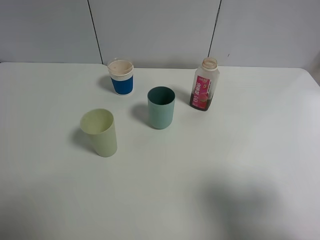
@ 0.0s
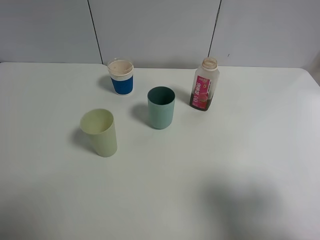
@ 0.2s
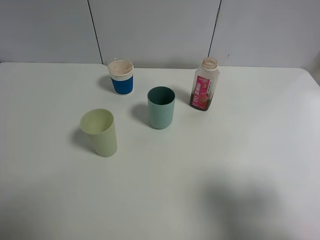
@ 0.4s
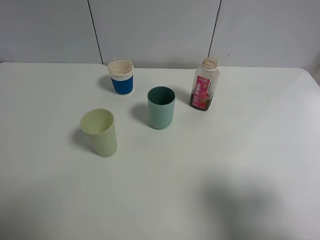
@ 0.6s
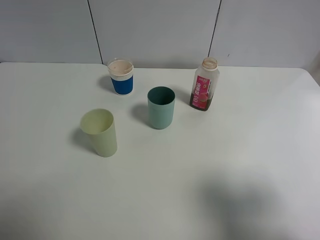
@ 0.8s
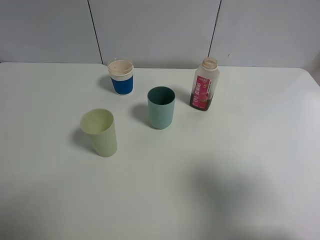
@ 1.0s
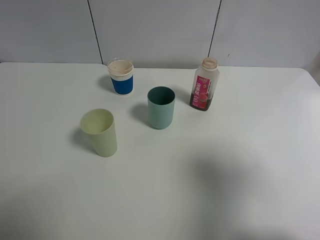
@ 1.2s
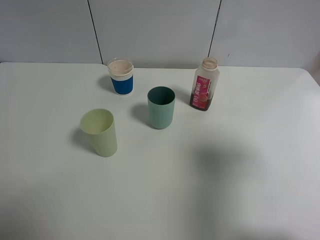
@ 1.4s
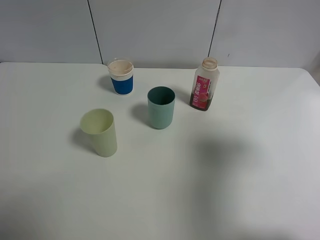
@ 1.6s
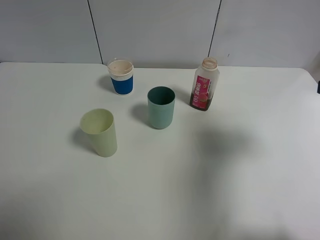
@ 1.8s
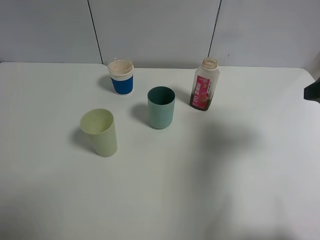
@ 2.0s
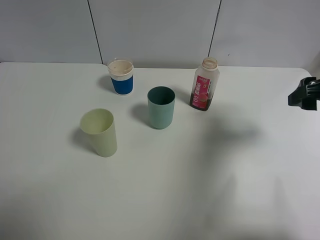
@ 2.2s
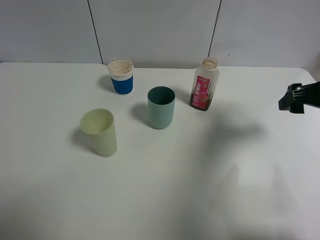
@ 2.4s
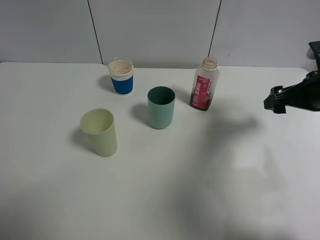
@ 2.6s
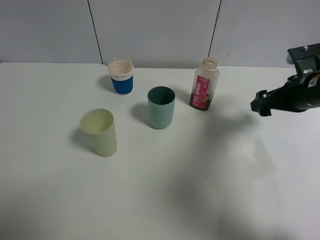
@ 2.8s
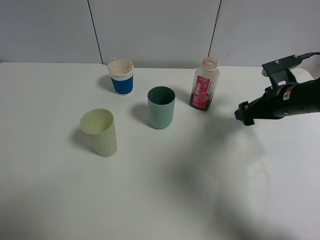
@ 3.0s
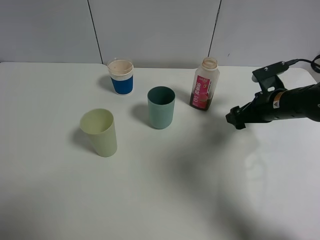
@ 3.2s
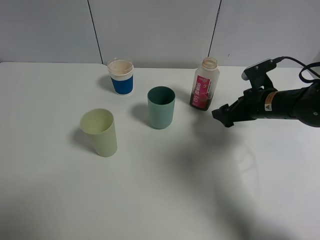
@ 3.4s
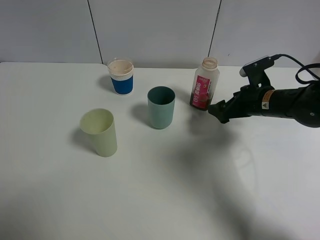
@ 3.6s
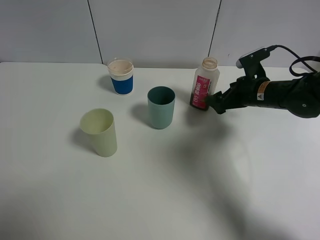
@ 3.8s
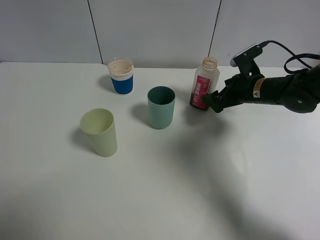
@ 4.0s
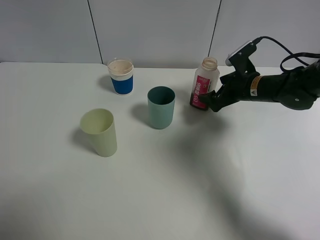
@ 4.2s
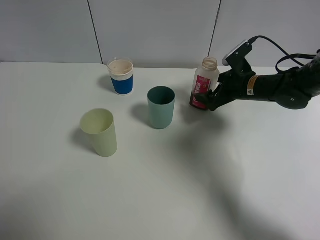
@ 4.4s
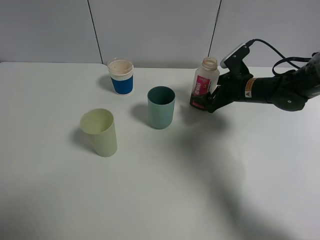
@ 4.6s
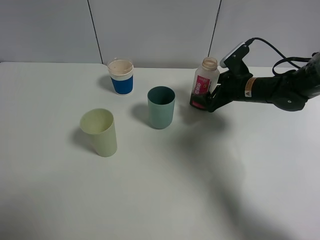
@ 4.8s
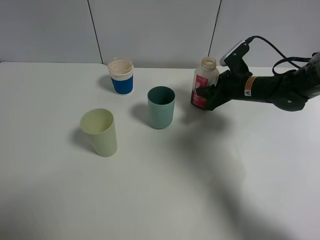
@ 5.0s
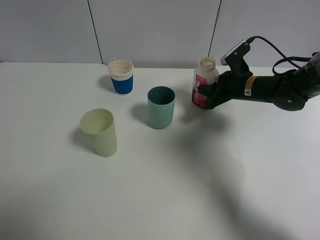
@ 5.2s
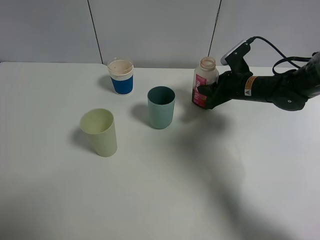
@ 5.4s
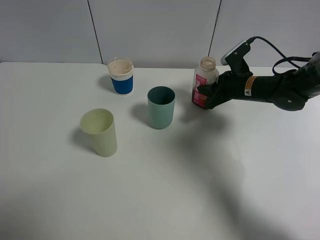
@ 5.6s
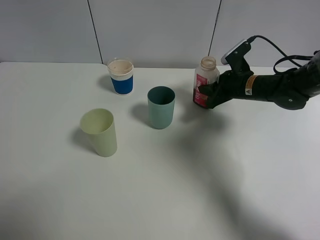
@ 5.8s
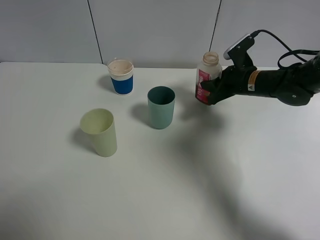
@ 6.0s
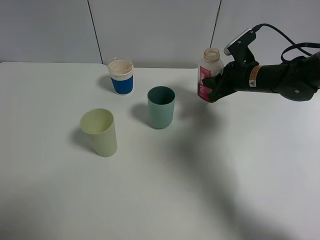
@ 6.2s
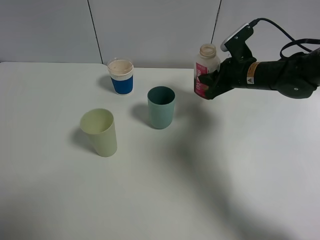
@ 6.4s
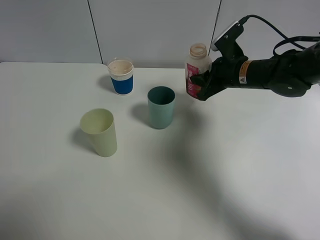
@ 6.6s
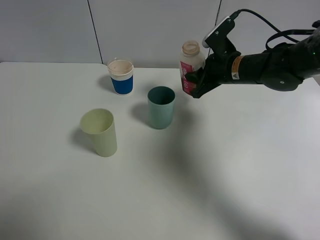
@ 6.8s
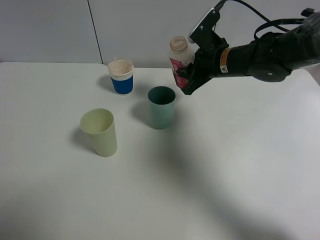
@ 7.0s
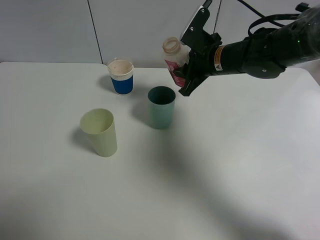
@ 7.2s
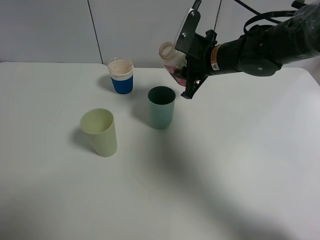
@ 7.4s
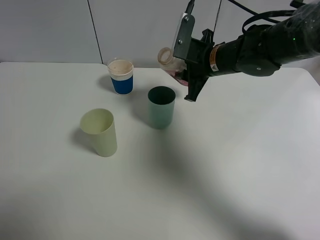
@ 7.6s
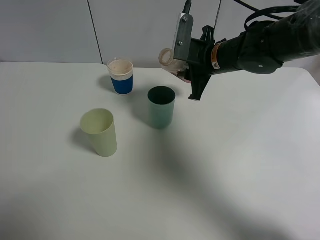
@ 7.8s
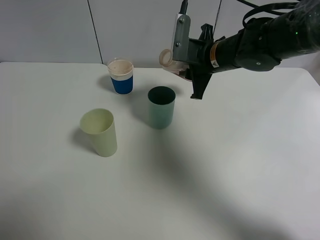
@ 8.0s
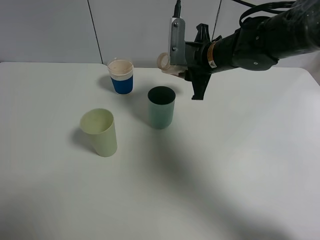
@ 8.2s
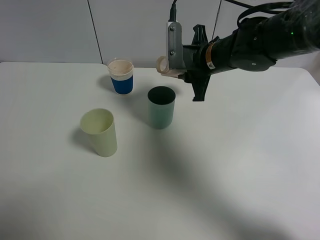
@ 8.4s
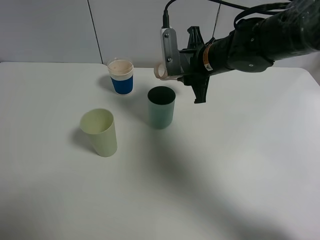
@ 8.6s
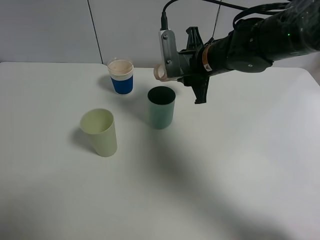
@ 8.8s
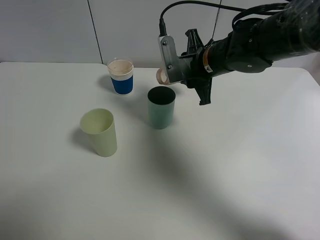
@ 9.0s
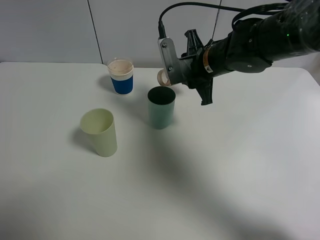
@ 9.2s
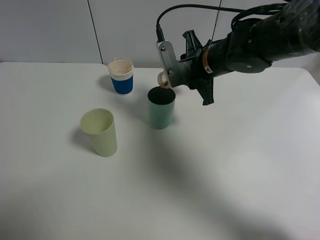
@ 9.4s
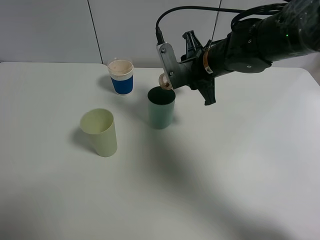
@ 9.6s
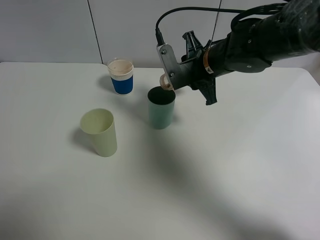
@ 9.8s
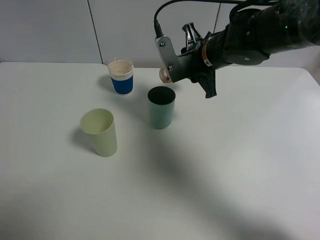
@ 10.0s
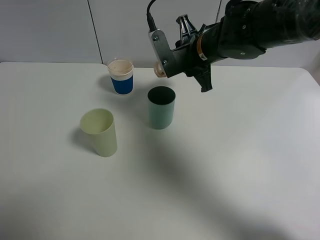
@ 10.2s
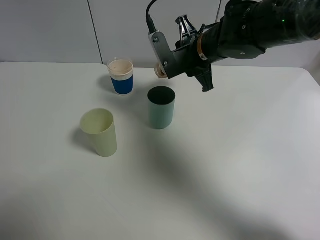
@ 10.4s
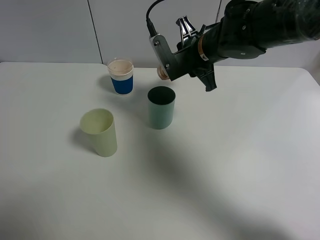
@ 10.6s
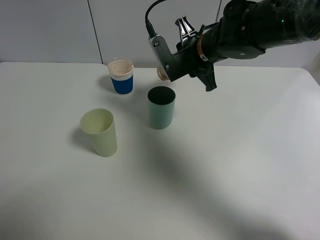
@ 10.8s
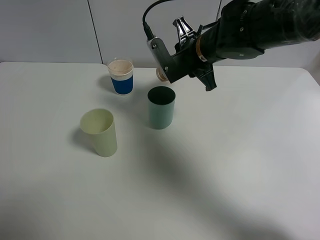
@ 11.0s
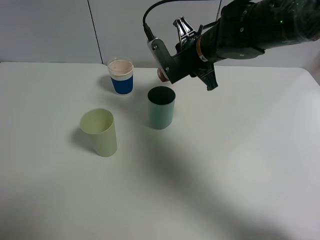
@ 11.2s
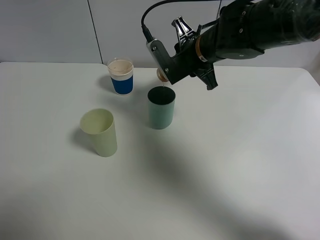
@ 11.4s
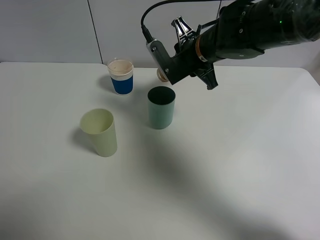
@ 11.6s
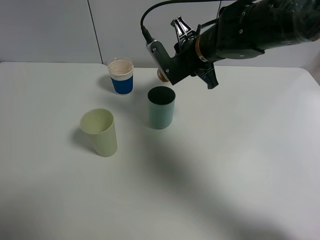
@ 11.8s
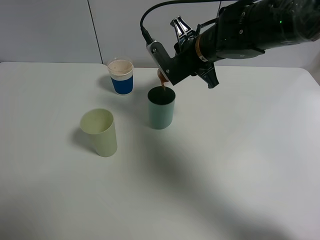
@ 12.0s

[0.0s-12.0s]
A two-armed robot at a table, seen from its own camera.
Task of the whole recording: use a gripper to hold the bottle of the drink and pour it into a random cup.
Step, 0.0s to 5.2s: Grasp the cranberry juice bottle with the right gripper.
0.0s to 1.6s: The right gripper travels forward by roughly 10 cm.
1.6s to 3.0s: The right gripper travels downward and forward by some 25 cm.
3.0s to 4.4s: The right gripper moves forward, approximately 5 cm.
4.4s to 6.0s: The right gripper closes up.
6.0s to 7.6s: The right gripper moves to the left and upward, roughly 10 cm.
9.0s to 10.4s: The grippers stay close to where they were, moving slightly.
10.4s to 12.0s: The grippers stay close to where they were, moving slightly.

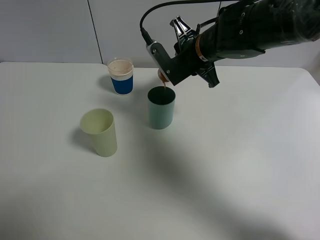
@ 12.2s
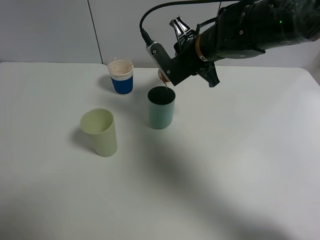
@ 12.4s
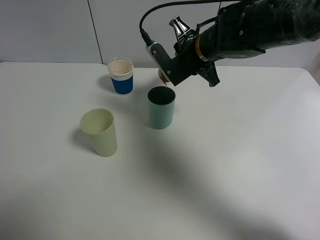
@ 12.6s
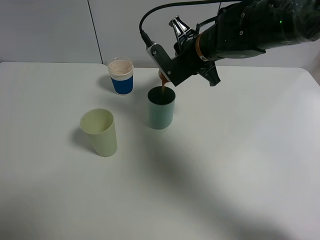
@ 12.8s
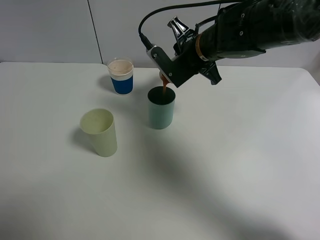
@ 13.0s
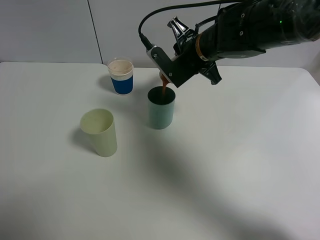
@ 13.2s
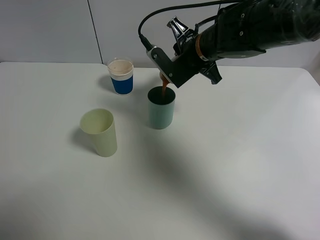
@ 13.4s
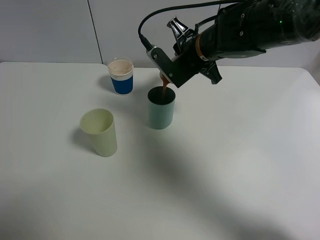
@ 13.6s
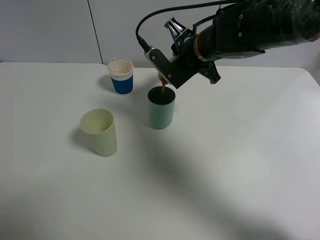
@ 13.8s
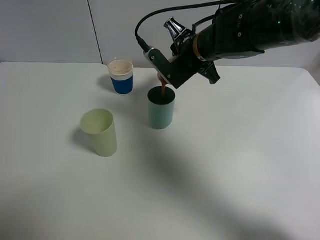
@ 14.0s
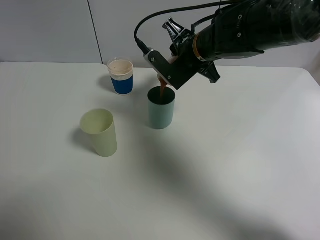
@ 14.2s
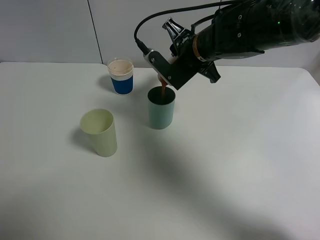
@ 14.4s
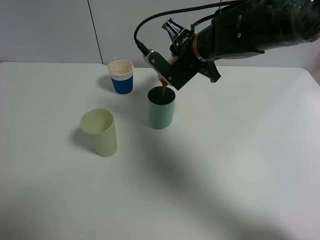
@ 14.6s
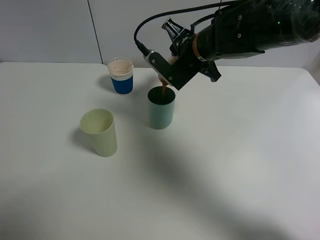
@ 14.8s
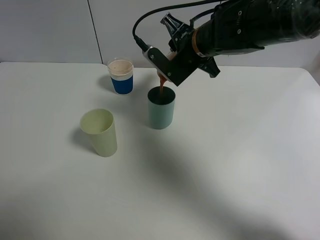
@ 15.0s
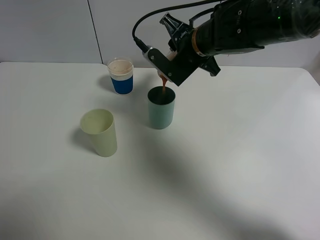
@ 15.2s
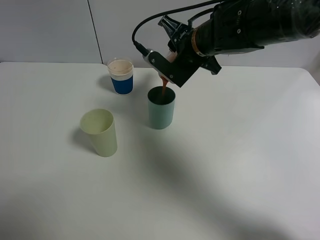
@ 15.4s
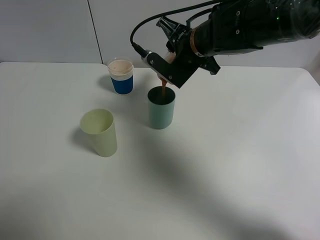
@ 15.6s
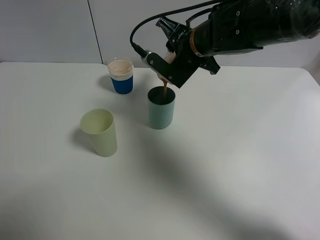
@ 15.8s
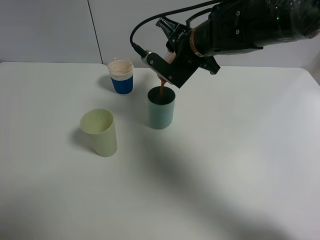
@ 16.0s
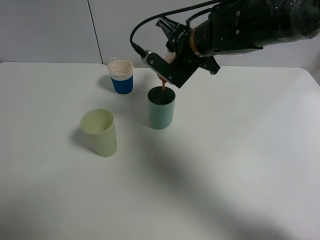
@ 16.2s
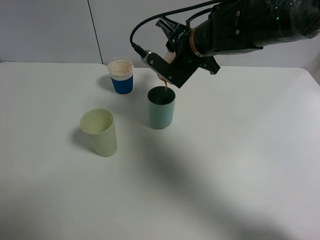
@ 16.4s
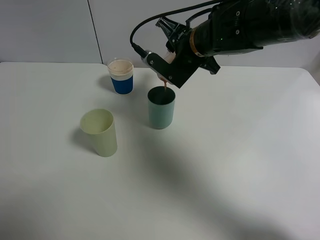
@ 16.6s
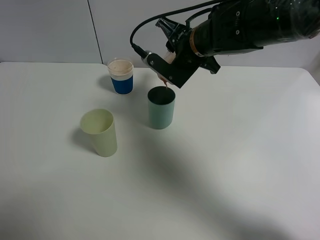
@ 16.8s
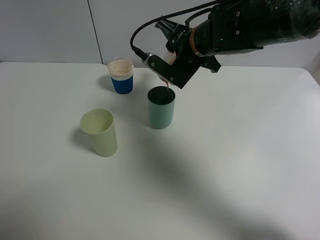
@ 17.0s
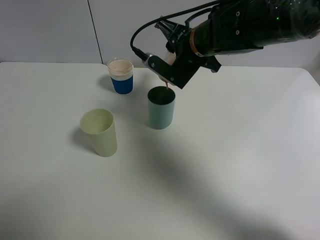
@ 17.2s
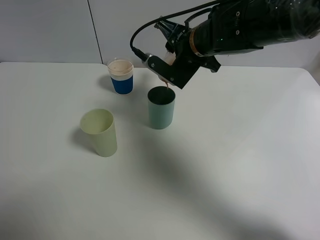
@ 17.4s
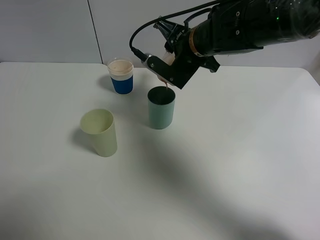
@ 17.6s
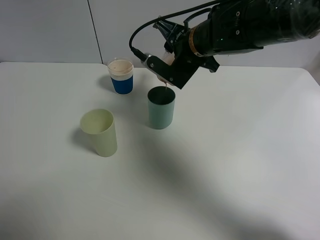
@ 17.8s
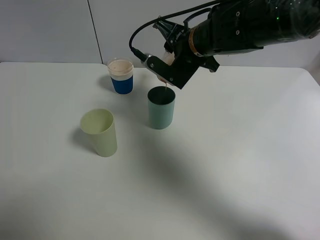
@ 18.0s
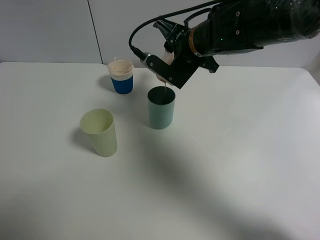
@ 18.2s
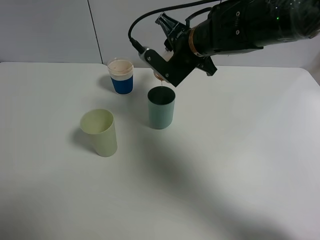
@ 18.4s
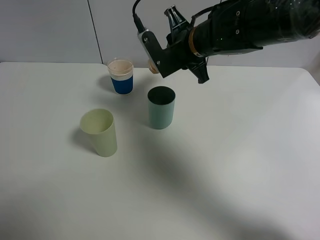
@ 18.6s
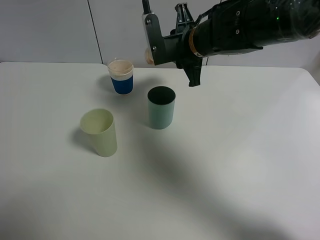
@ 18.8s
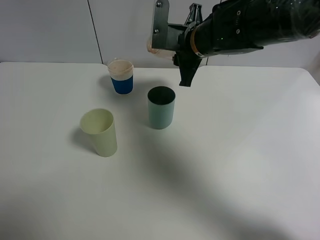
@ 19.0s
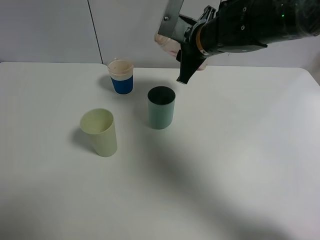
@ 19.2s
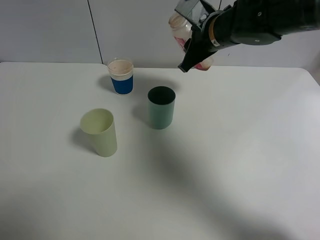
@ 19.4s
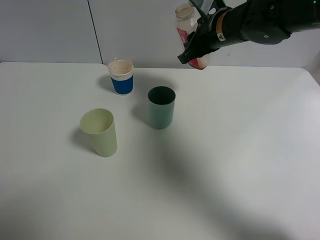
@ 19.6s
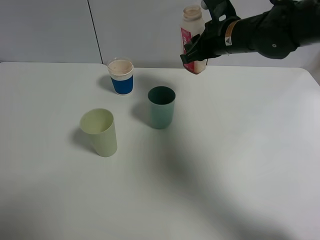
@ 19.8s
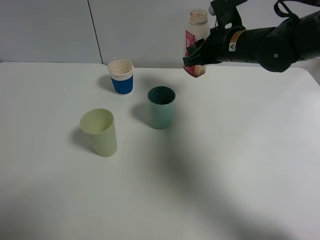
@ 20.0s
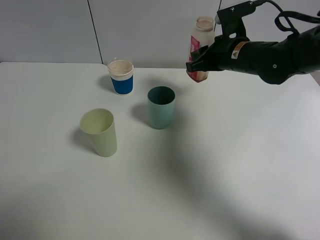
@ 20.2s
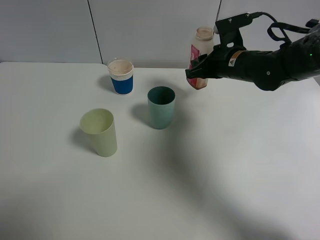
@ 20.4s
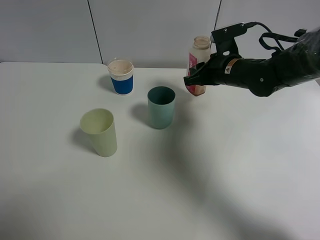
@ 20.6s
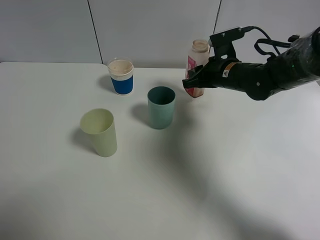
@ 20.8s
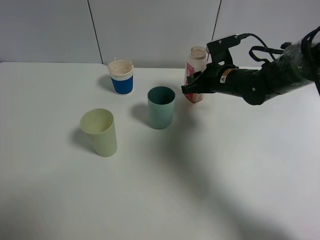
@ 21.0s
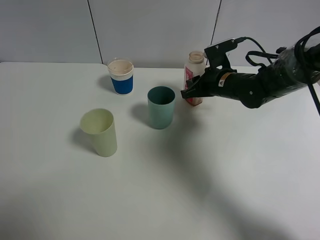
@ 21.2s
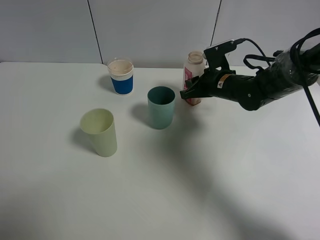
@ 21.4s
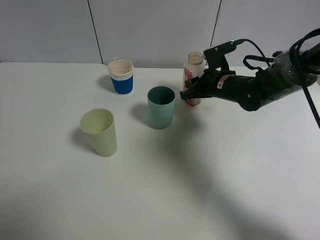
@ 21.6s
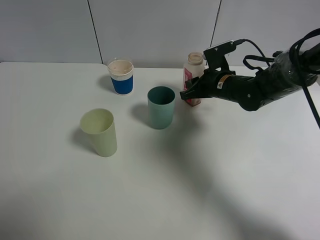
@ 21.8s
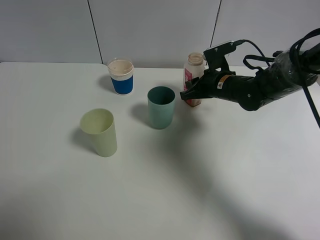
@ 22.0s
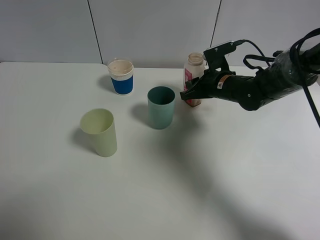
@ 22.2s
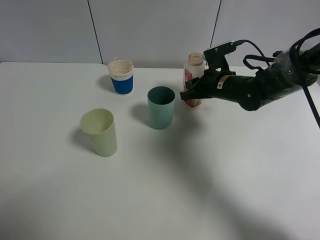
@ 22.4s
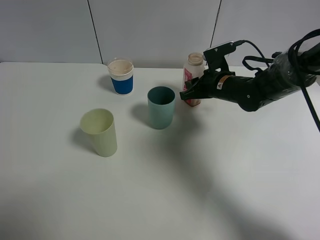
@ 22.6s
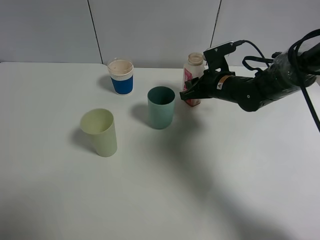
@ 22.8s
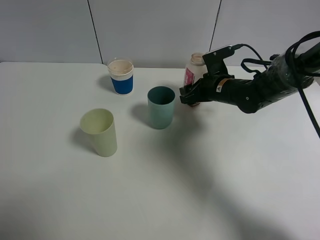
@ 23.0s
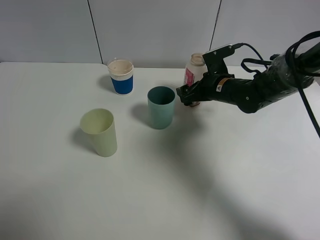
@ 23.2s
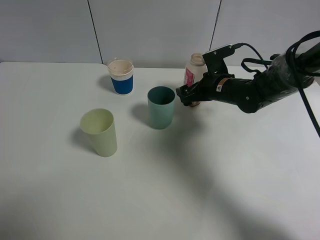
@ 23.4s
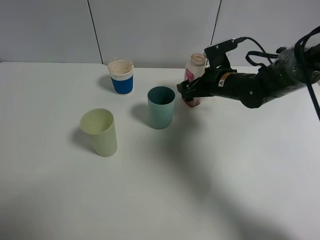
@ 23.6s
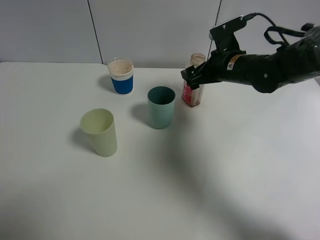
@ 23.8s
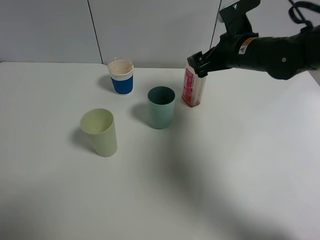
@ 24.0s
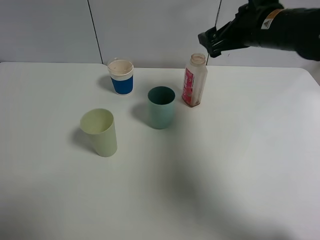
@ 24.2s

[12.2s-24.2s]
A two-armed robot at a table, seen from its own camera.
Task of the whole recording: use a gripper to hold the bottle of the drink and pour it into a random cup.
Step, 12.2s to 18.8s: Pour the cranberry juice into the cyan cup with the right gripper.
Step, 19.0s to 23.6s: Place the cranberry juice bottle on the table with the right gripper.
12.2s to 15.2s: The grippers move only a little.
15.2s to 16.6s: Neither gripper changes place.
16.6s to 18.2s: Both grippers stay put.
18.2s to 19.8s: The right gripper shifts some 5 cm to the right.
19.8s to 21.2s: The right gripper moves downward, about 10 cm.
21.2s to 22.6s: Neither gripper changes place.
22.6s to 24.2s: The right gripper goes some 15 cm upward, and opens its fingers.
